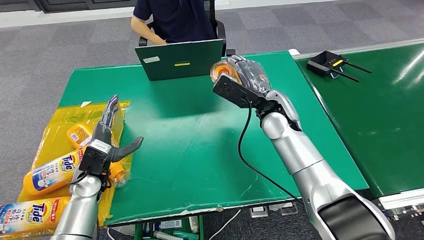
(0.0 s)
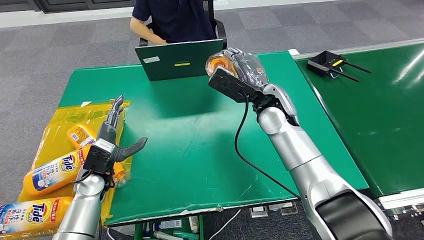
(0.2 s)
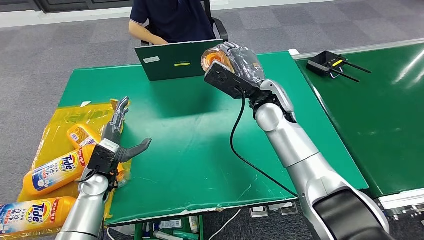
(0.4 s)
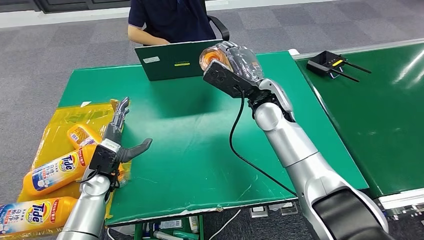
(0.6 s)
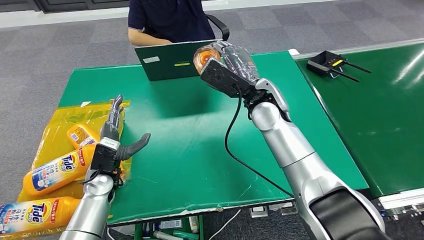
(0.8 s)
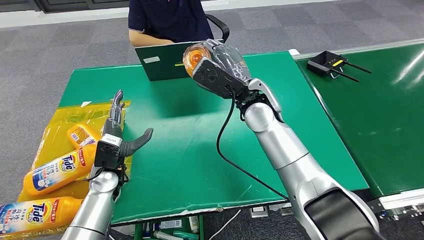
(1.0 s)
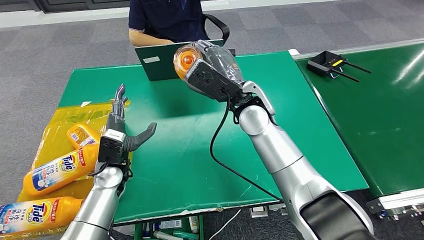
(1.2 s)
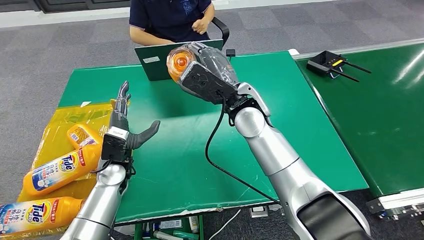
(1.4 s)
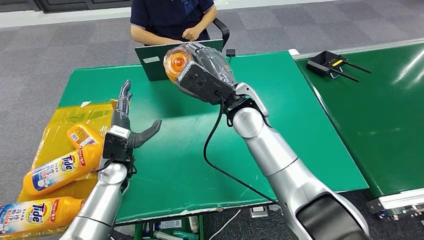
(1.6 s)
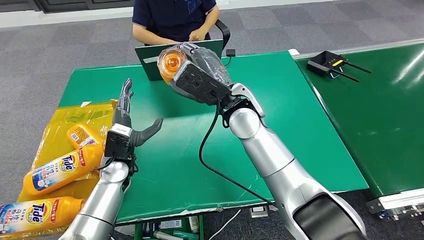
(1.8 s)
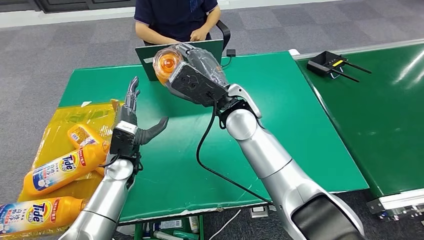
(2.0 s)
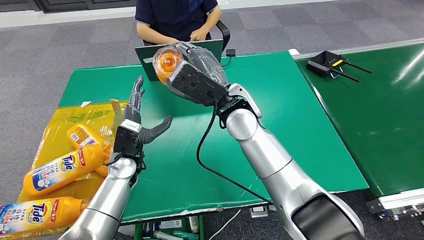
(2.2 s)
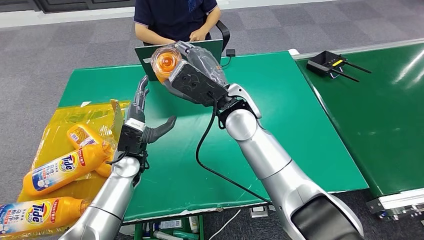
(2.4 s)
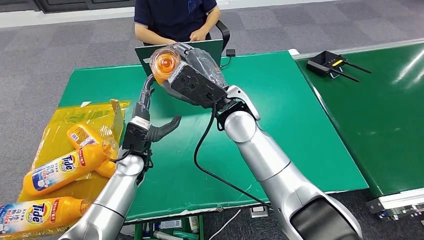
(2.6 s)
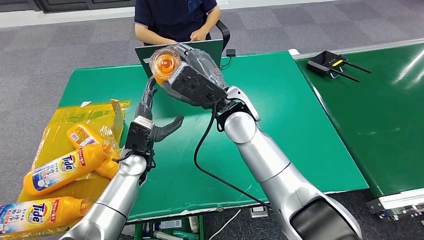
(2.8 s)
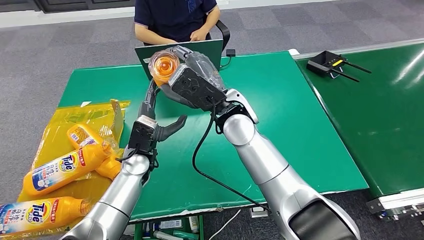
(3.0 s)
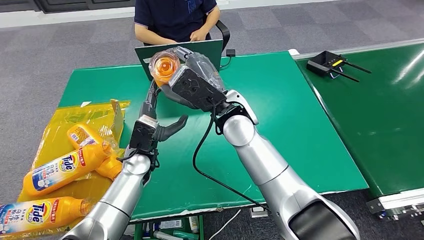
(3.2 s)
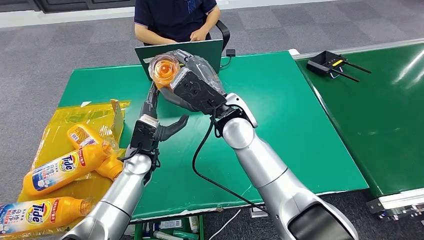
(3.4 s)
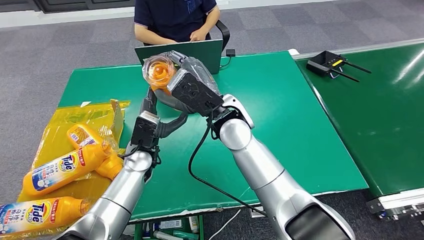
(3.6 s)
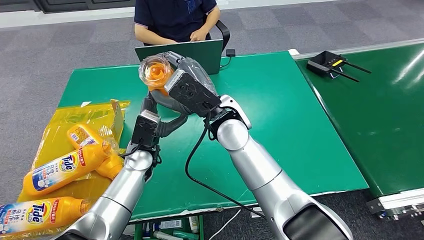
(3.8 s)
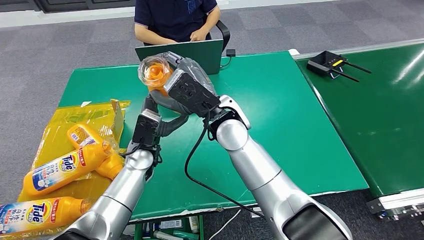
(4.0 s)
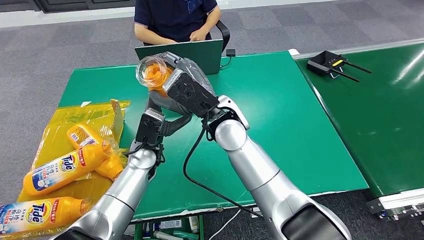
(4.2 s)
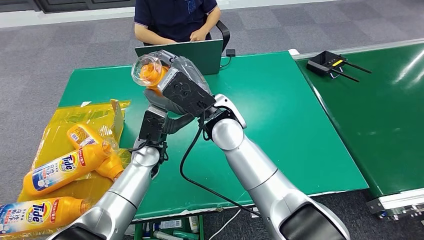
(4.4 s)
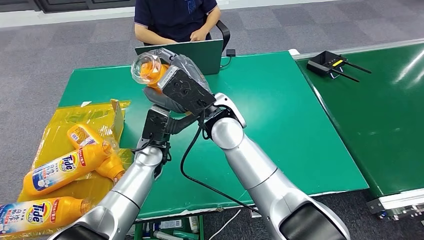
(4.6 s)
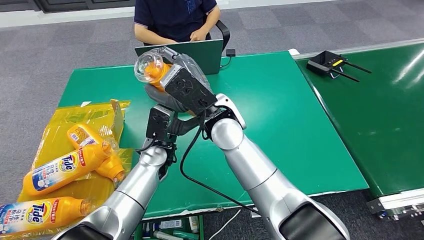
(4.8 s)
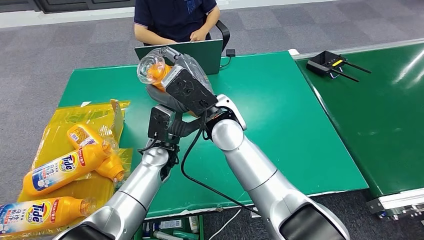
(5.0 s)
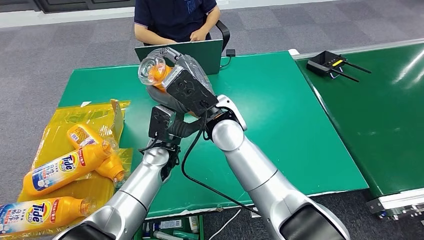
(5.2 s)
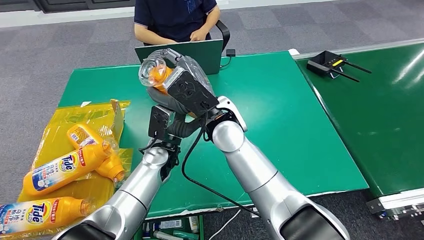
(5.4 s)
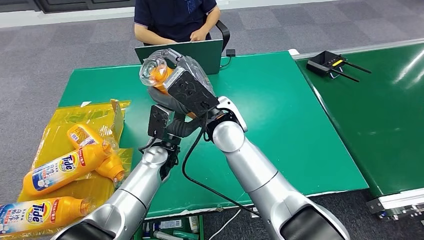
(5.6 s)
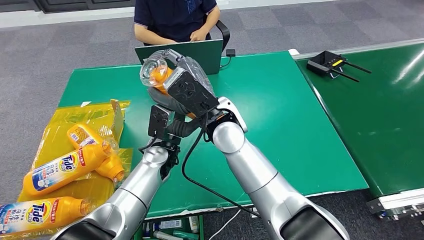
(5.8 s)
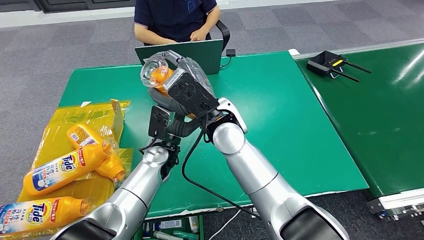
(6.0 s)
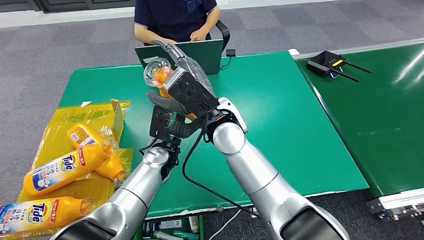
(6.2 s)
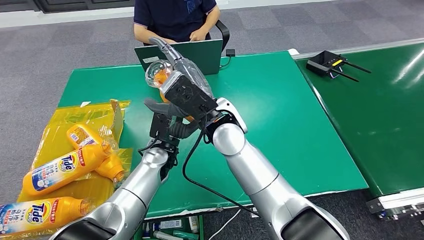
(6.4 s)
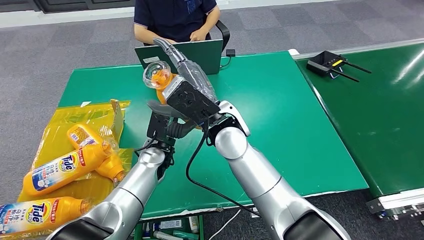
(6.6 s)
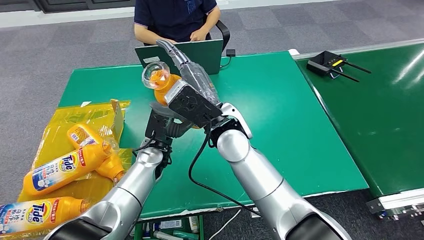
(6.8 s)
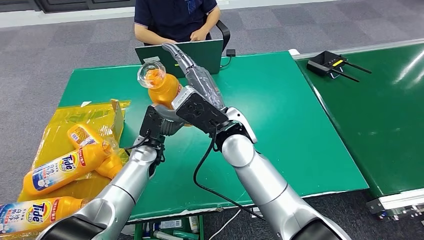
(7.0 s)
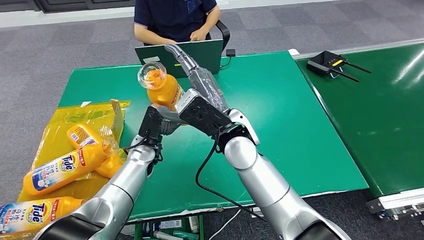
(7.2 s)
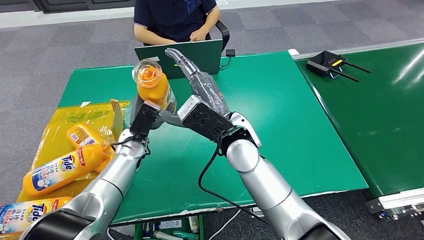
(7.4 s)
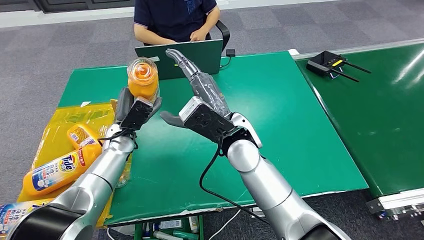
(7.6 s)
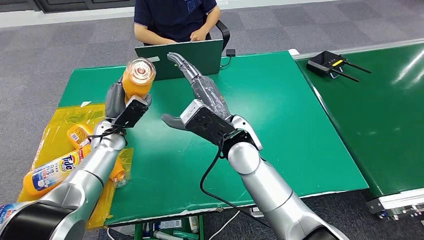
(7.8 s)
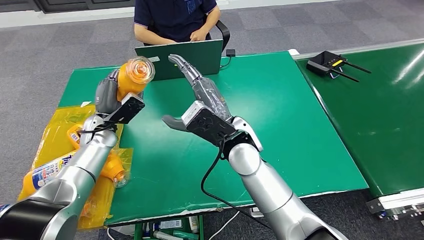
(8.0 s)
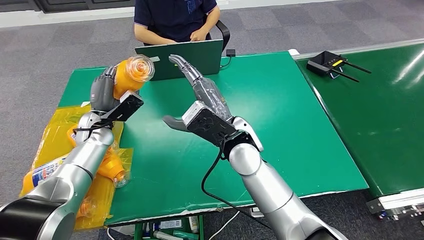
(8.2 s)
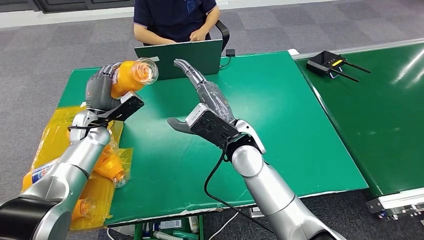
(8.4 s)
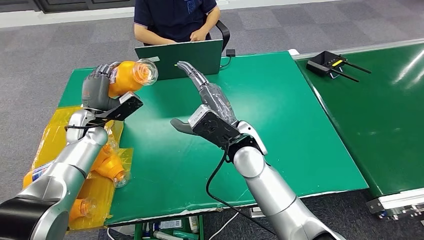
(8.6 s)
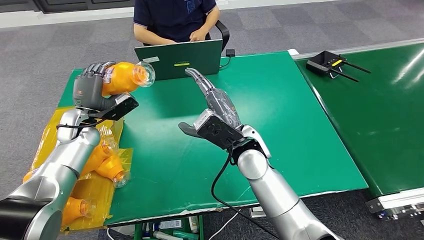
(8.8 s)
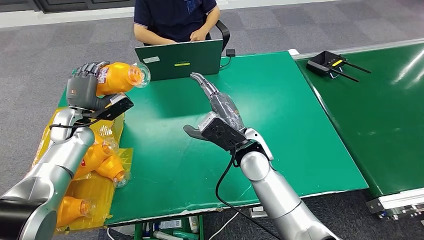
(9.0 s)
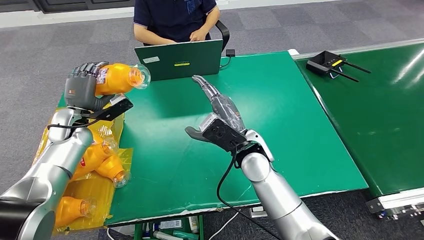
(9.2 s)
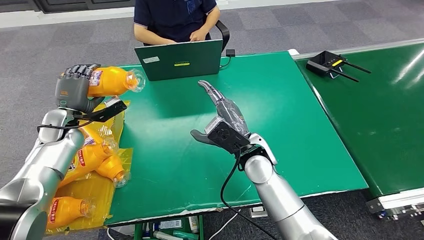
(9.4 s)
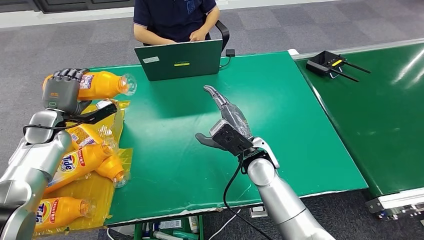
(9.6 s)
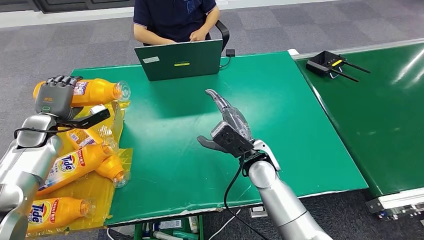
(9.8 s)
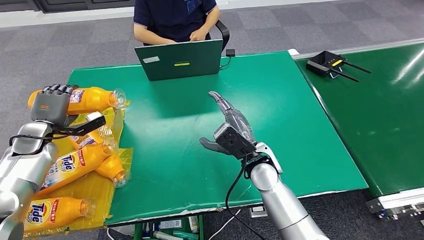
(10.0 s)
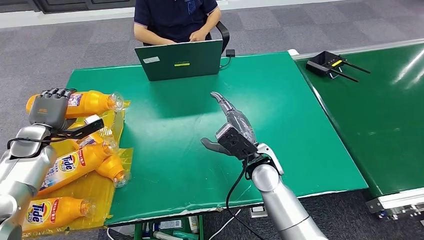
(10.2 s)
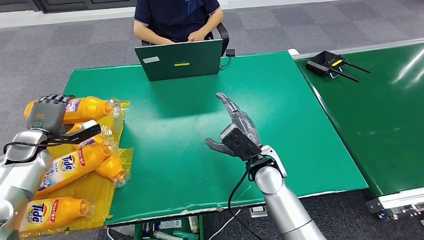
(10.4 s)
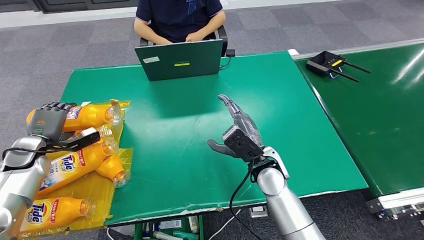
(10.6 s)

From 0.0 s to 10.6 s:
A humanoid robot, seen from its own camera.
Step, from 0.0 s to 10.6 s: Turn the bottle to the front side.
From 1.6 s to 3.0 s: The left hand shifts roughly 5 cm to the right.
From 3.0 s to 4.6 s: The hands move only a little.
From 4.6 s to 6.0 s: The hands make only small movements.
From 6.0 s to 7.6 s: The left hand heads to the left, covering some 15 cm.
From 9.0 s to 10.6 s: The right hand travels downward by roughly 5 cm, while the left hand shifts roughly 15 cm to the left and backward.
